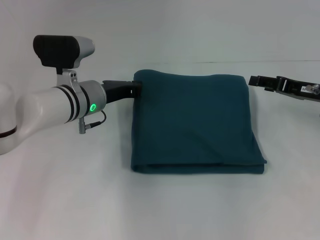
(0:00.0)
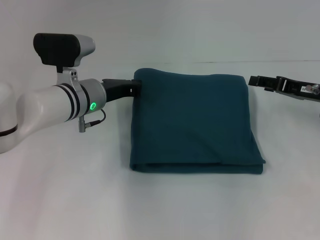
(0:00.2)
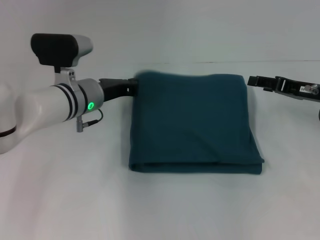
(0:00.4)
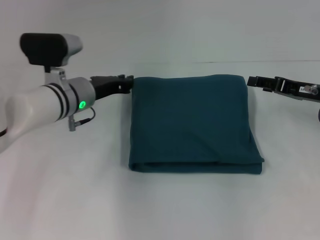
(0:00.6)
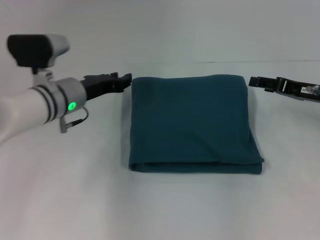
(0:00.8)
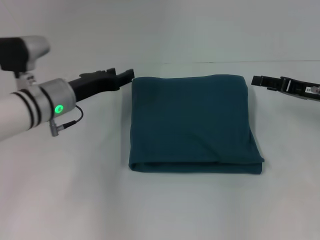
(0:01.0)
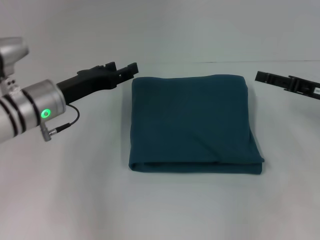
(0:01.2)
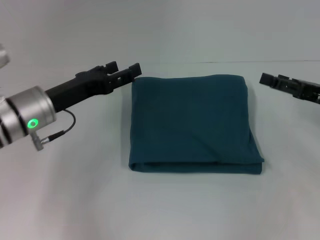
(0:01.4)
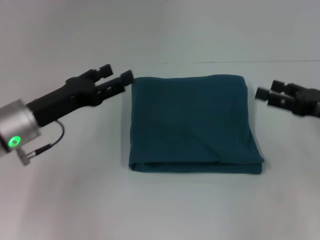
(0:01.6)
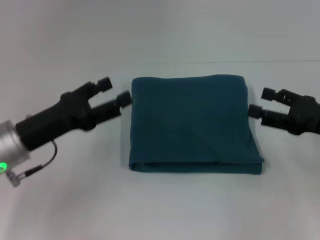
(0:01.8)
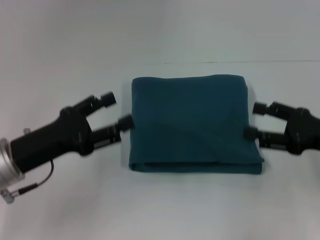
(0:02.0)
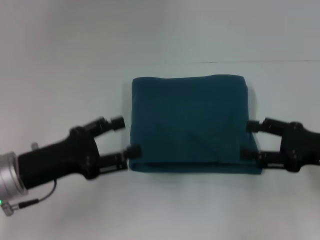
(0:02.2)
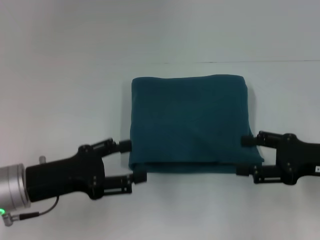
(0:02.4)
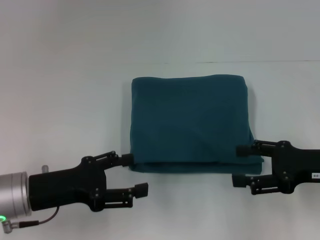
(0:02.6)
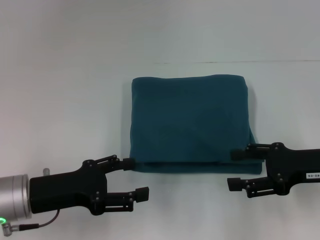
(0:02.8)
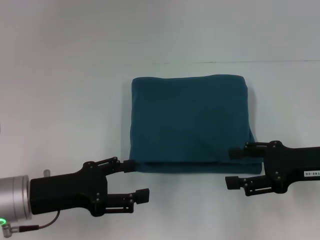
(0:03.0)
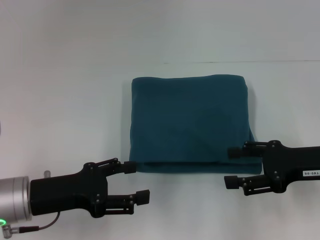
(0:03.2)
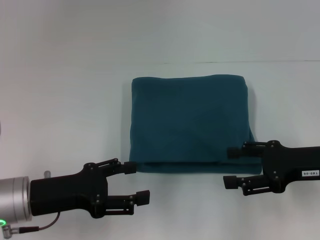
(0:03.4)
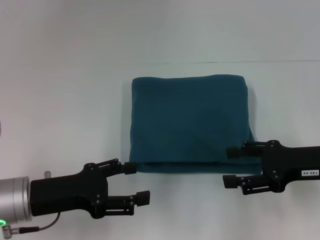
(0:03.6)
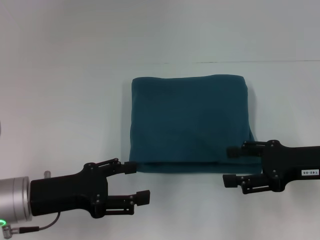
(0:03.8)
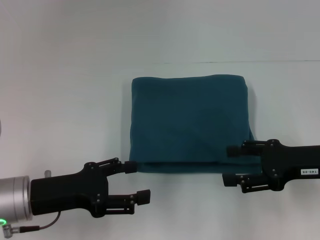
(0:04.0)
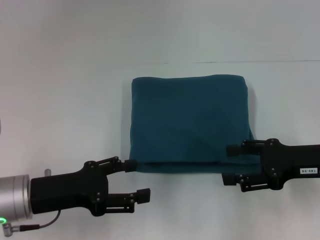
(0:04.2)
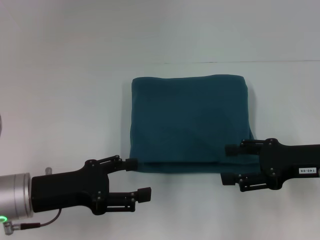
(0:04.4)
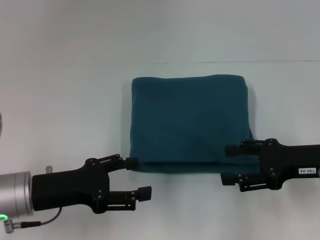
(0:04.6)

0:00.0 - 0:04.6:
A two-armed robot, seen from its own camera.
0:00.0 - 0:01.6: The right gripper travels backward by about 5 cm. The left gripper moves backward and to the left, some 15 cm, and opens.
0:01.6 - 0:03.0: The left gripper is displaced backward by about 5 cm.
0:03.0 - 0:04.6: Both grippers stay put.

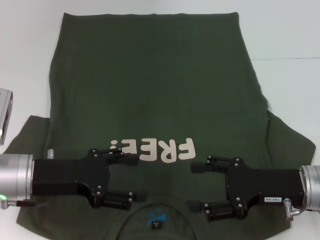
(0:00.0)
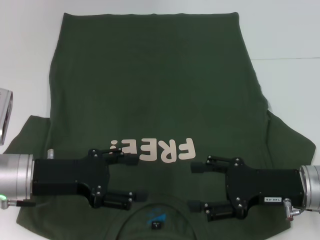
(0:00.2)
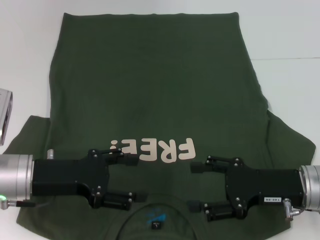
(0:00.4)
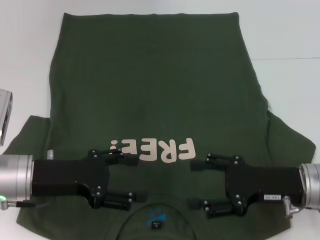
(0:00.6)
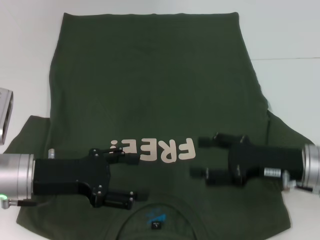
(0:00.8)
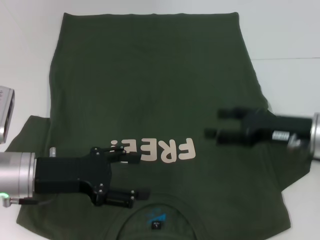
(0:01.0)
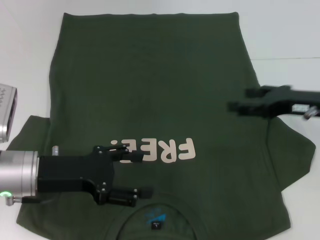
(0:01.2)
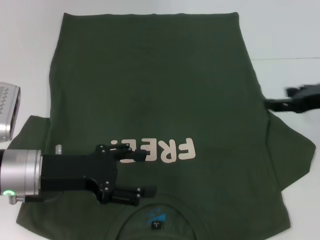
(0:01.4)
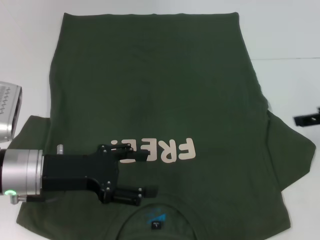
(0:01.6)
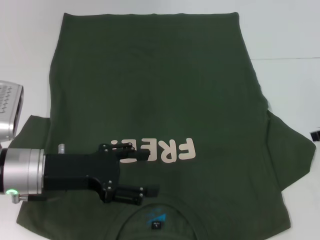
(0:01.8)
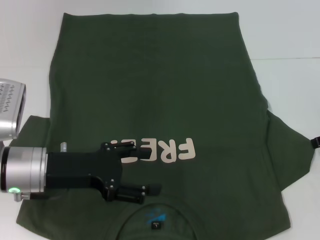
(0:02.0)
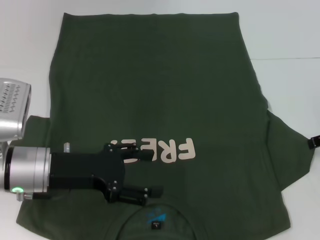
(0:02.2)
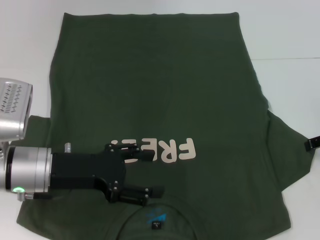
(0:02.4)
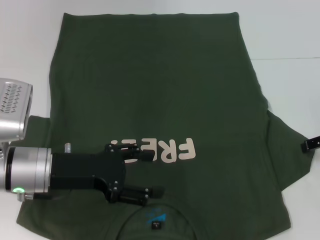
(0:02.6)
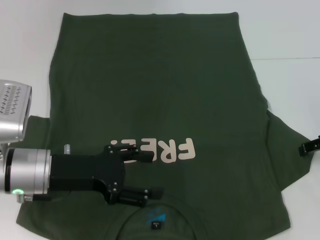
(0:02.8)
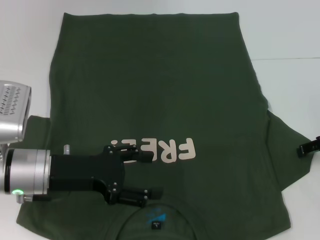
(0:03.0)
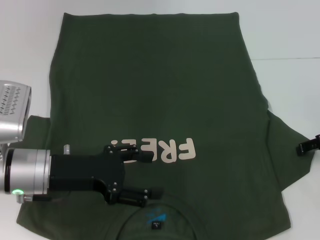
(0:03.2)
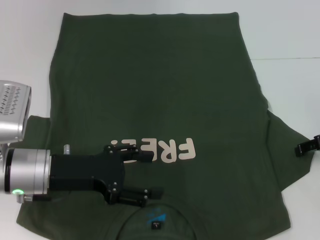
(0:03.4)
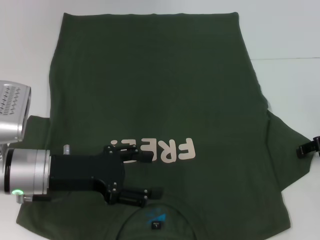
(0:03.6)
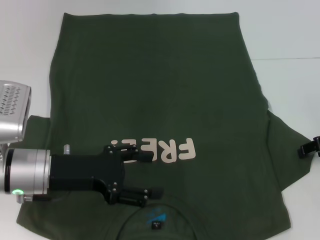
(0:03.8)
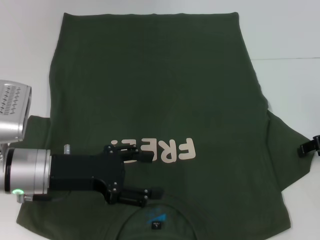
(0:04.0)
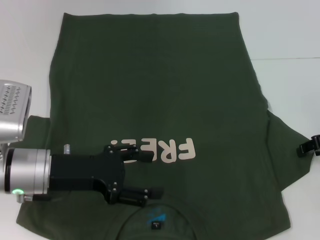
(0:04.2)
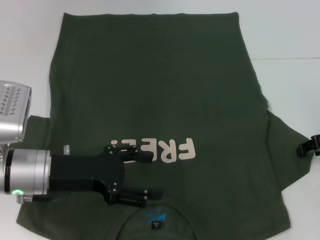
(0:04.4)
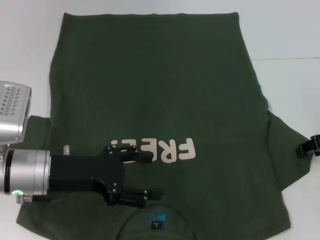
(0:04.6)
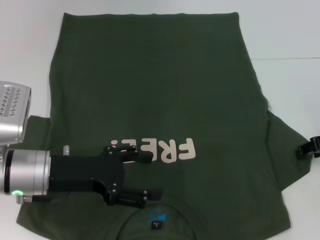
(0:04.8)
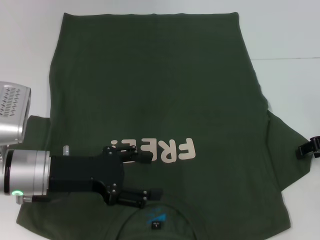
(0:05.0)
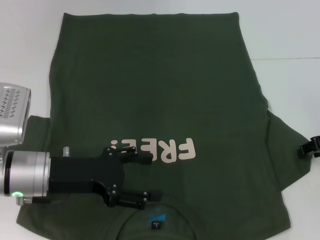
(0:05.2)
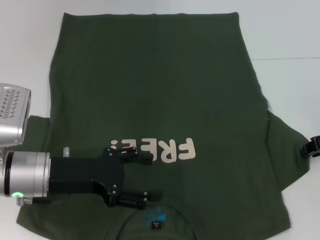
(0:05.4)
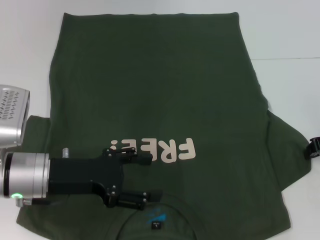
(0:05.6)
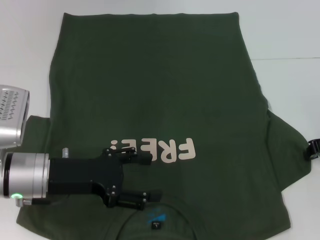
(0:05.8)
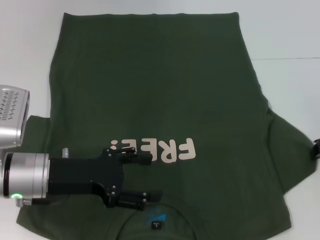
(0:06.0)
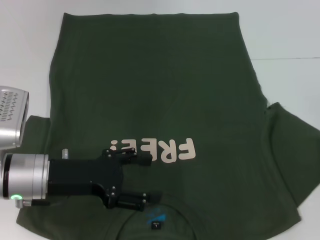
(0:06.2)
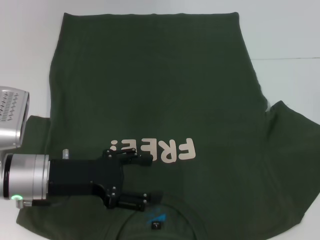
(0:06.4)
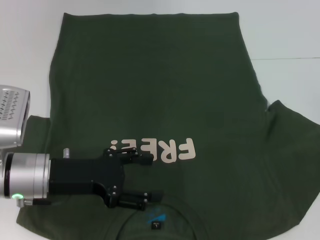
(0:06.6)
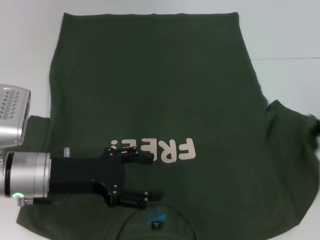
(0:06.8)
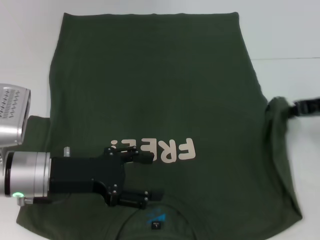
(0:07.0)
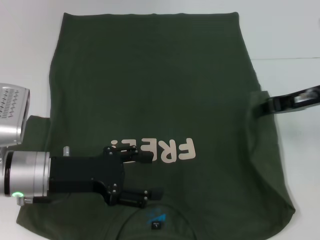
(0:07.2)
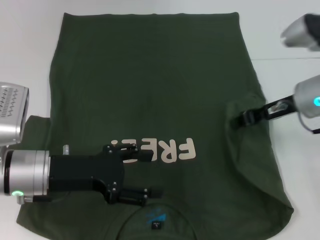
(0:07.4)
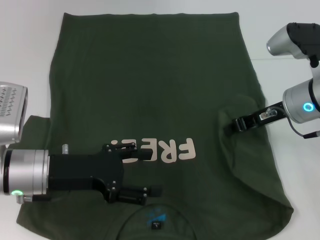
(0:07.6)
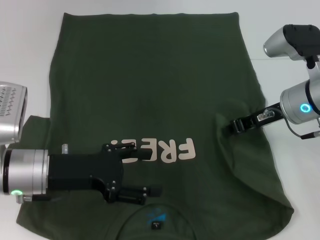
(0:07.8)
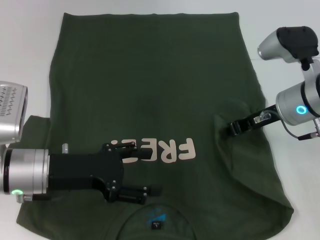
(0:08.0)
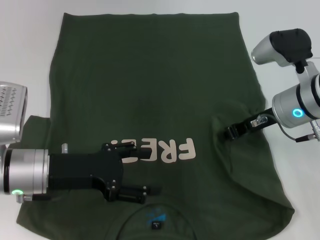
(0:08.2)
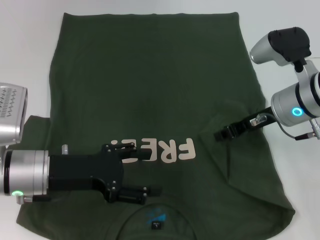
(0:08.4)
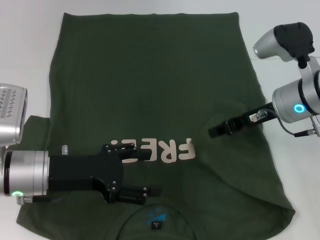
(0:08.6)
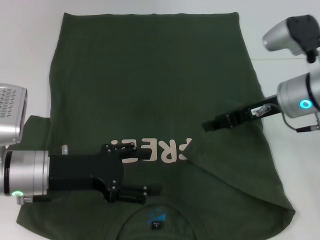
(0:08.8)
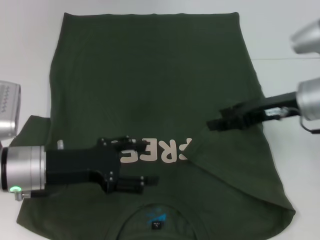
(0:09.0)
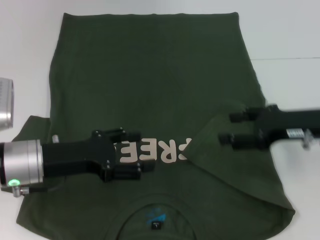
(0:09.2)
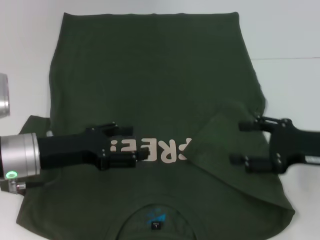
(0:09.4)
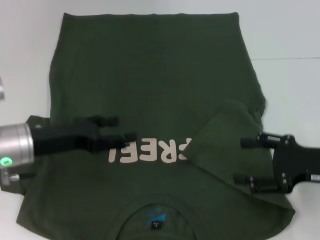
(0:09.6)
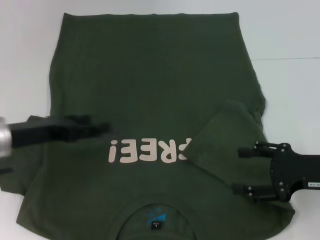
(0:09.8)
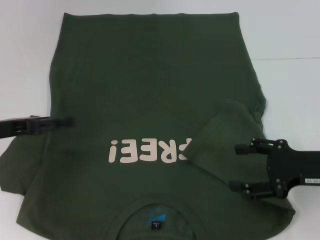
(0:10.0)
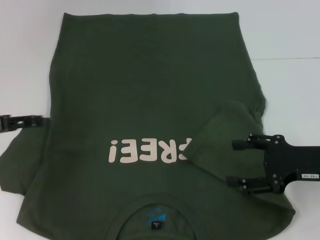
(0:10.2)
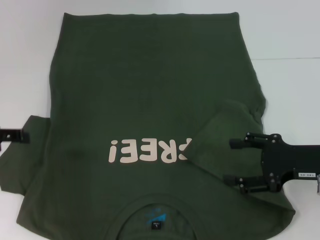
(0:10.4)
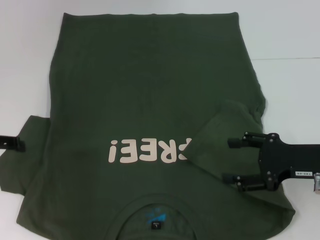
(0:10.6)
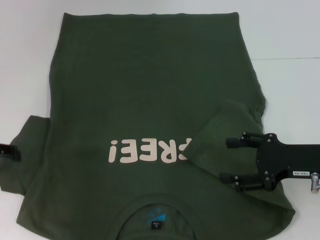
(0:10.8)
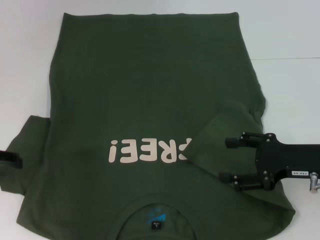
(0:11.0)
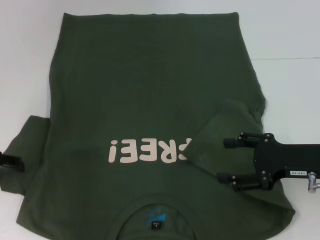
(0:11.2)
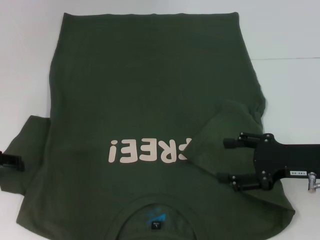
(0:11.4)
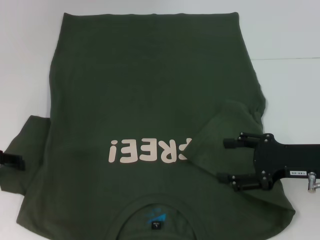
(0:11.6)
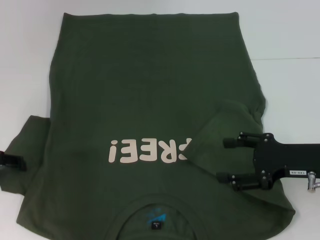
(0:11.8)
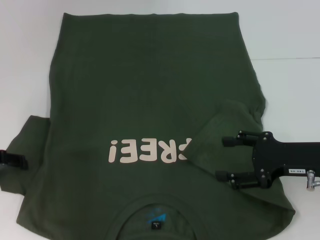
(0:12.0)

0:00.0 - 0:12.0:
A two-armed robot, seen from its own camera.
Step, 0:00.0 - 0:08.6: Fold the bottom right sleeve with your right hand.
0:00.0 - 0:01.6: The right gripper is displaced to the right, upward and forward by approximately 15 cm.
0:03.0 - 0:04.4: The two grippers keep their place.
0:04.4 - 0:06.0: The right gripper closes.
0:06.0 - 0:07.6: The right gripper shifts some 10 cm to the left.
0:07.6 - 0:09.0: The right gripper opens.
0:09.0 - 0:10.4: The right gripper heads backward and downward, covering about 10 cm, and opens up. Meanwhile the left gripper shifts about 15 cm to the left and upward.
0:10.4 - 0:12.0: The grippers stay close to where they were, moving slightly.

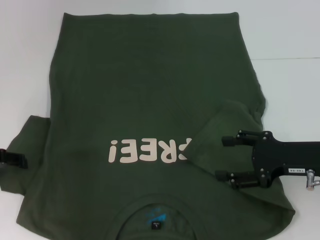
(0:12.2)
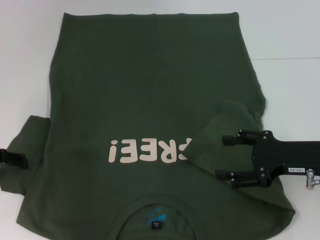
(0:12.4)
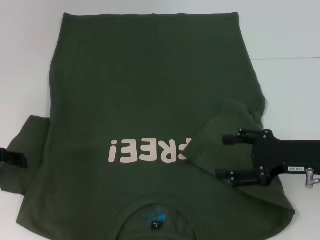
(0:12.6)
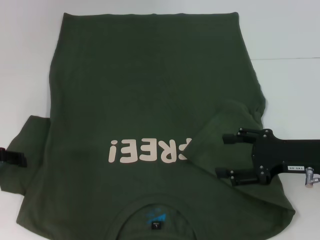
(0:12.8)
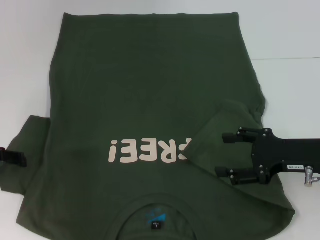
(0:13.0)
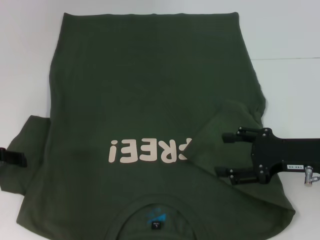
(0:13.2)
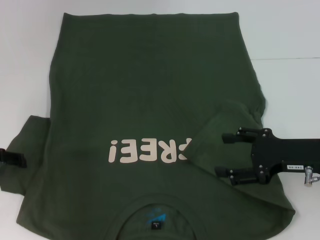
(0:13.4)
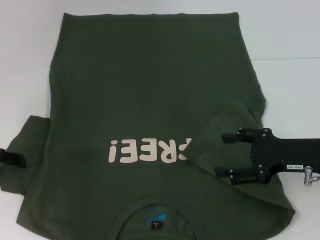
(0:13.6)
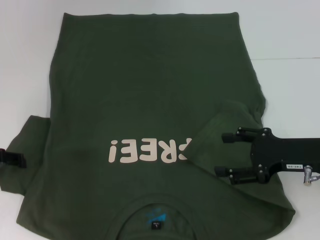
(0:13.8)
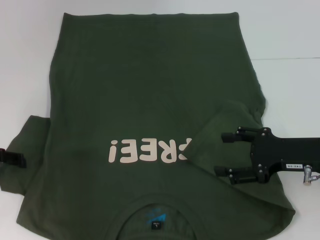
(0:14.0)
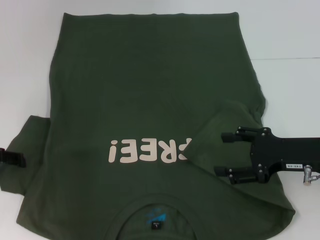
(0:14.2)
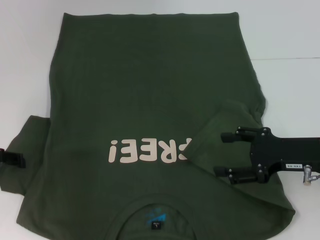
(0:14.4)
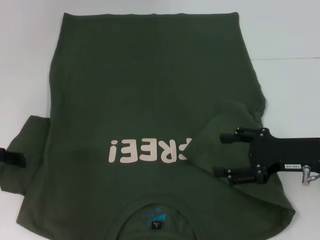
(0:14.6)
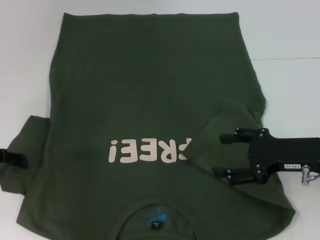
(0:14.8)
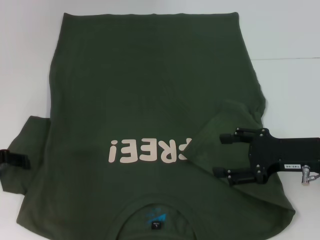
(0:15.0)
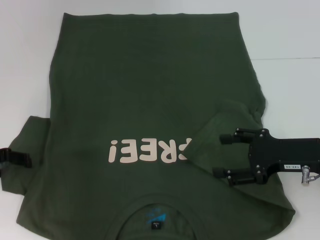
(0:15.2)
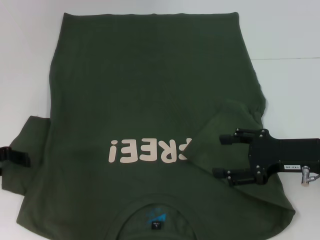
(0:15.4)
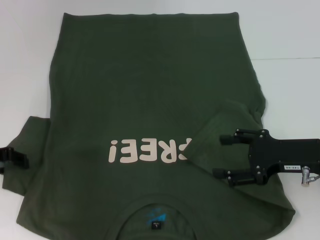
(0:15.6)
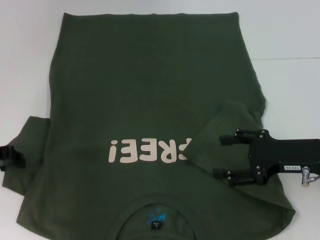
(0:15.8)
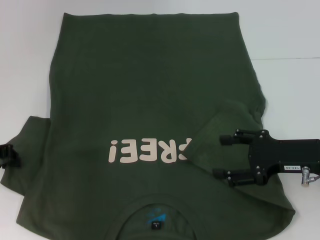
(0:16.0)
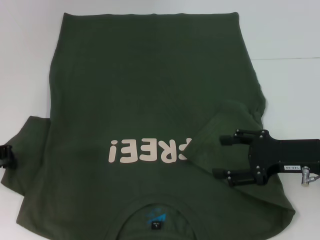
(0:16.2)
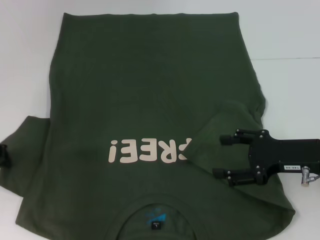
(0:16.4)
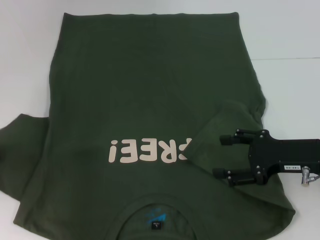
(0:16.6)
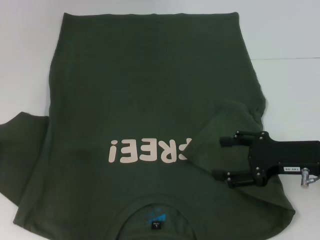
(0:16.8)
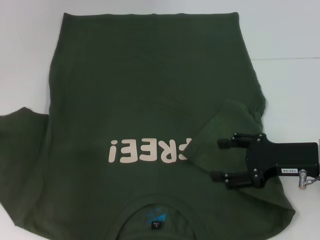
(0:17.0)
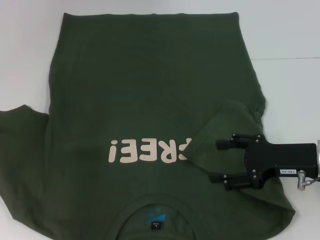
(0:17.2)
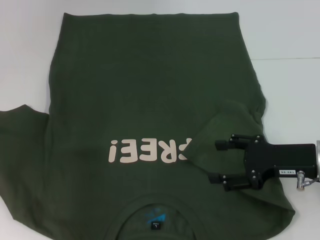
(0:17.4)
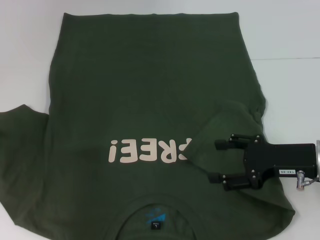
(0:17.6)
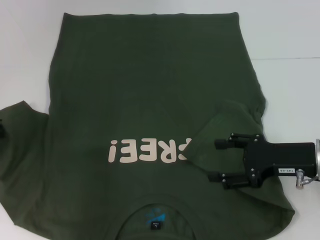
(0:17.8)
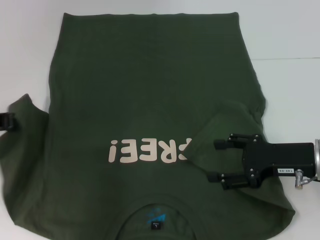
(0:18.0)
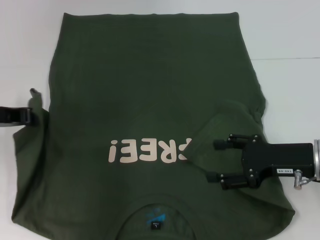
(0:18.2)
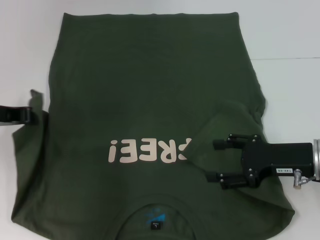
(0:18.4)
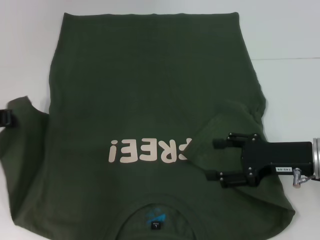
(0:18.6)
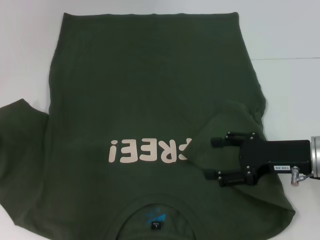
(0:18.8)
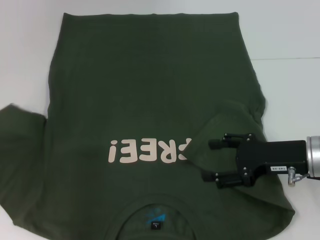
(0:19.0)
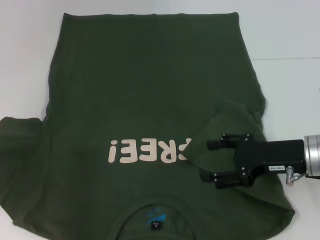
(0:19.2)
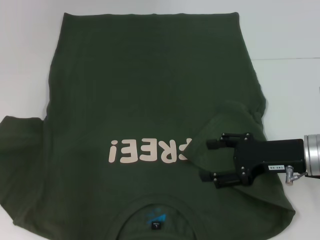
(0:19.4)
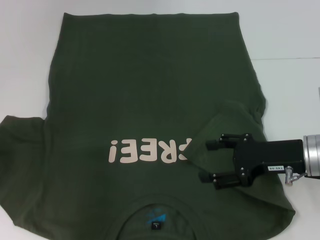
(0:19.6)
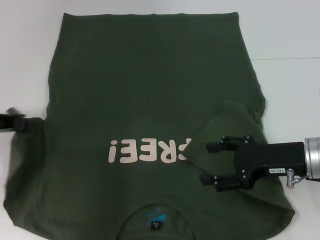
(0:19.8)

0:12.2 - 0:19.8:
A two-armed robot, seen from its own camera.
0:12.2 - 0:15.2: The two grippers keep their place.
0:15.2 - 0:16.8: The left gripper closes its fingers.
0:16.8 - 0:18.2: The left gripper travels to the right by about 5 cm.
